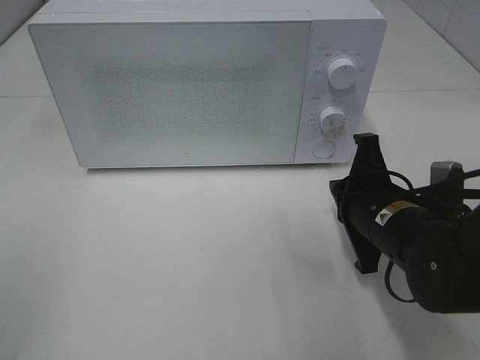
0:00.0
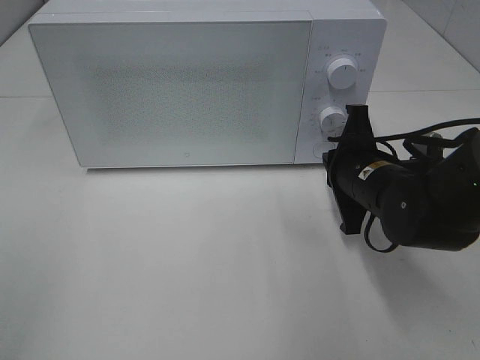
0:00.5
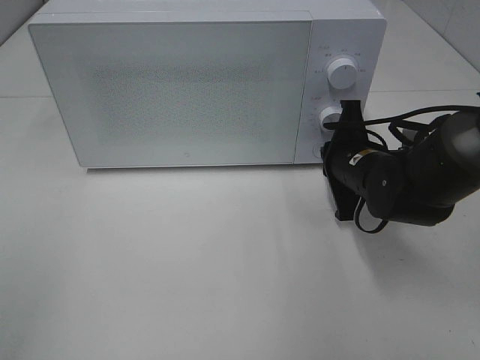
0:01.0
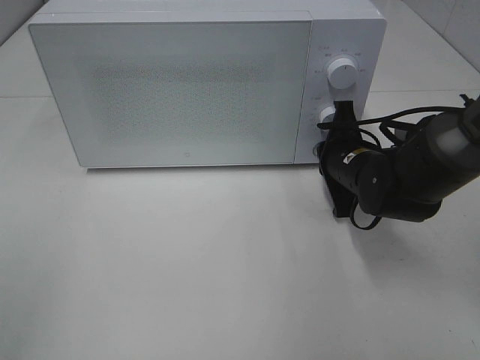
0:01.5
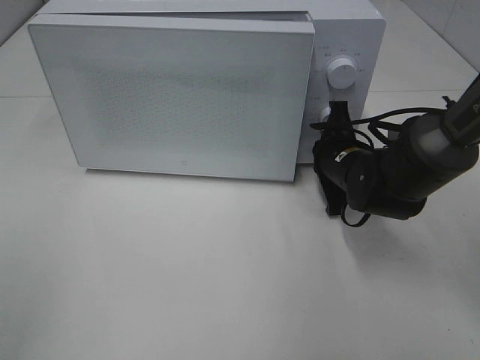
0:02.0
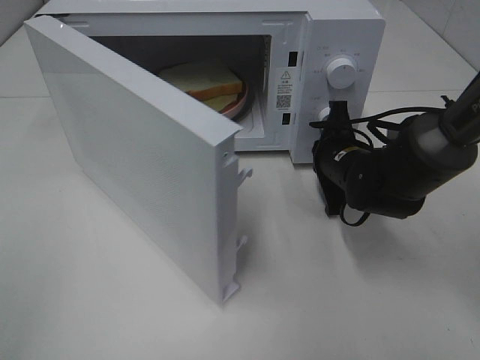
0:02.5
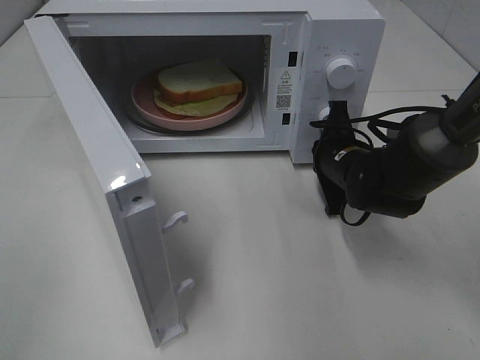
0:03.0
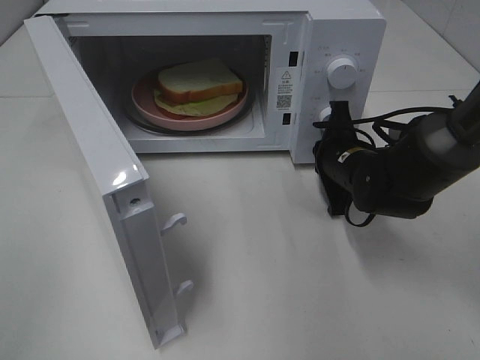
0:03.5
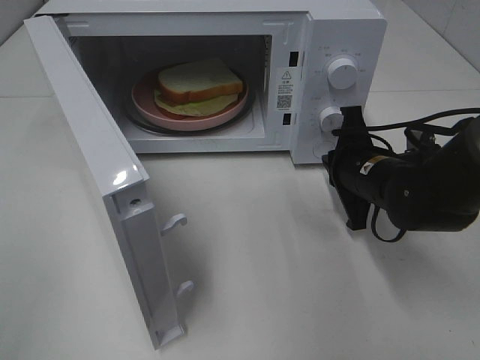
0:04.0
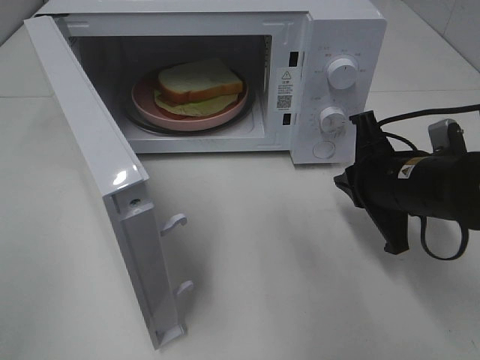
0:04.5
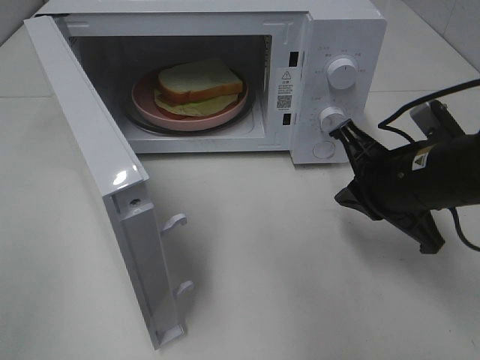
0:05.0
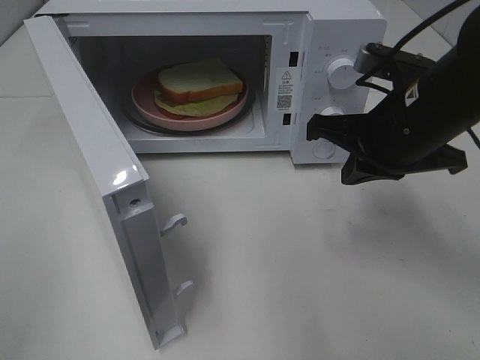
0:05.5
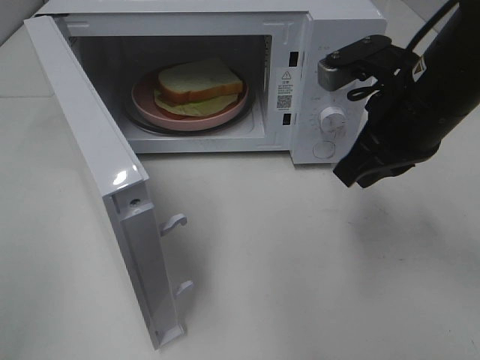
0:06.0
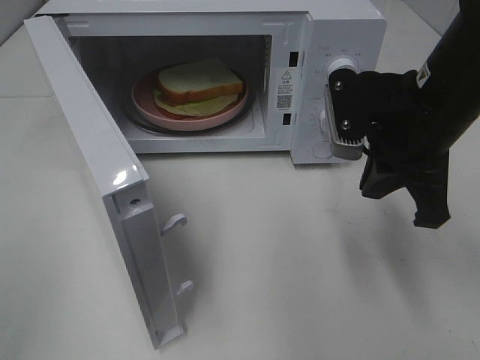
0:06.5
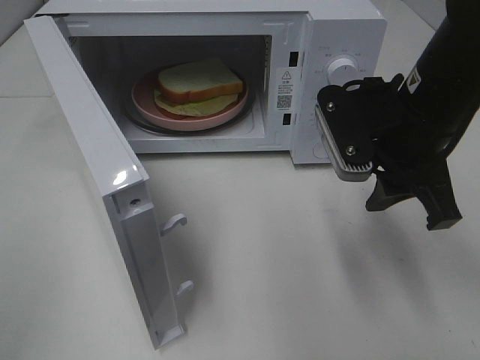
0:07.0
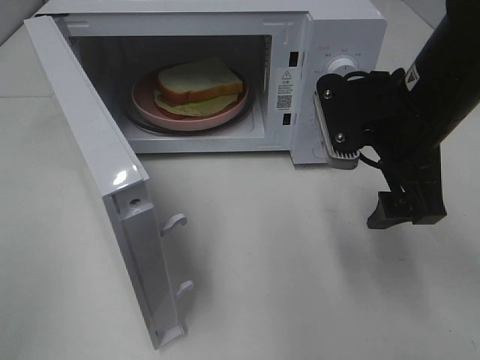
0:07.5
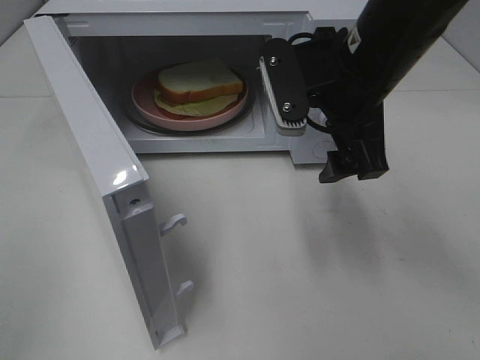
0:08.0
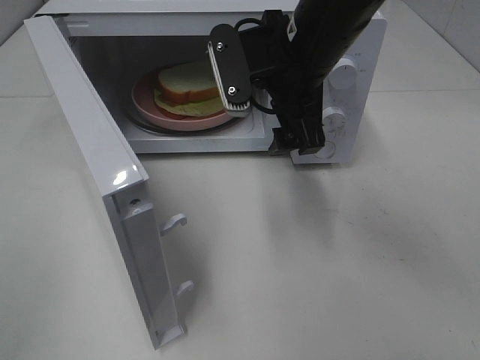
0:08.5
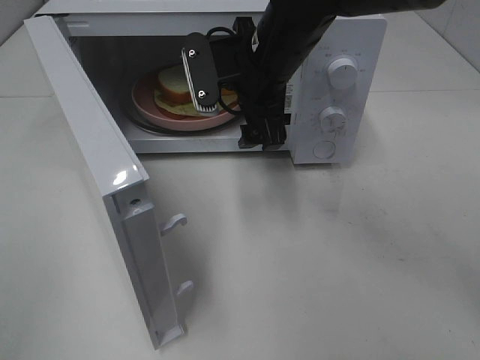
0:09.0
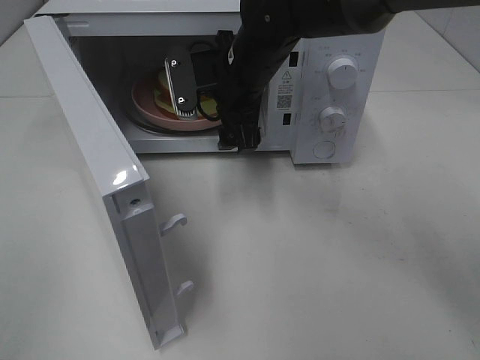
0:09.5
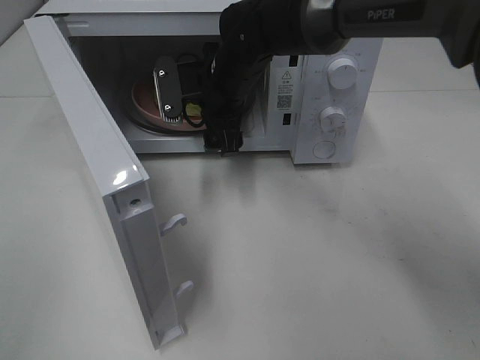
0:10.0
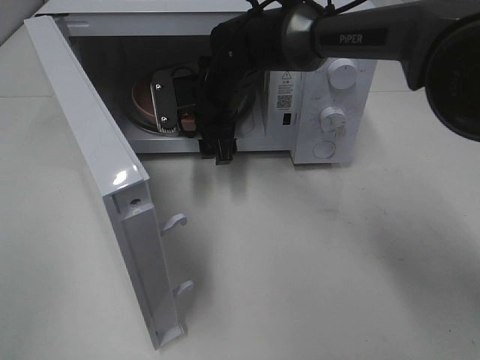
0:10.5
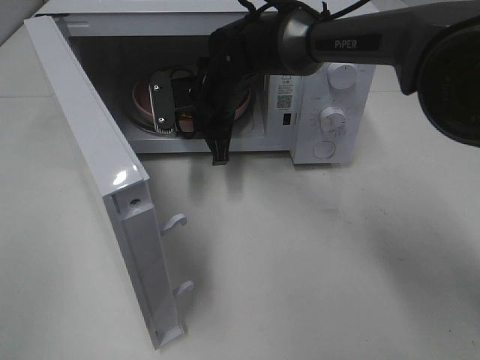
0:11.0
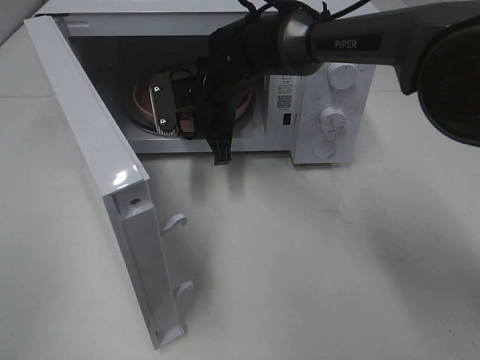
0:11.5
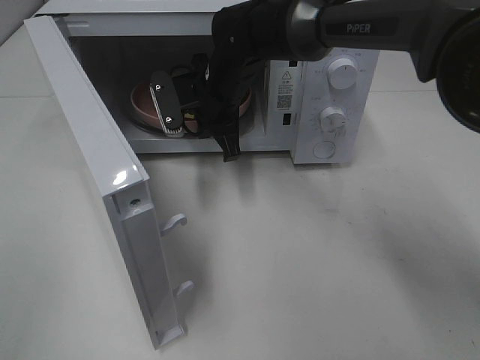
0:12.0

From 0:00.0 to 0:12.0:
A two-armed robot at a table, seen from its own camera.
Task of the whole recording: Heat Sandwich.
Step, from 0:00.0 to 0:04.0: Right hand: press the switch.
Step, from 0:04.5 to 0:11.0: Right hand: grab the plate with the sandwich.
From 0:00.0 to 0:02.0: The right gripper heads forward, covering about 10 cm.
From 0:04.0 to 0:06.0: The right gripper travels upward by some 15 cm.
From 0:06.0 to 0:08.0: The right gripper heads to the left, covering roughly 5 cm, and opens.
From 0:08.0 to 0:10.0: The right gripper is displaced forward, to the left and downward by some 20 cm.
From 0:10.0 to 0:12.0: The right gripper closes.

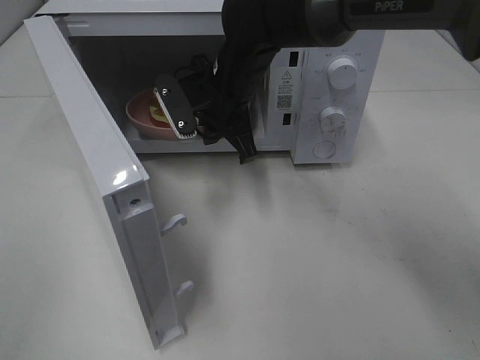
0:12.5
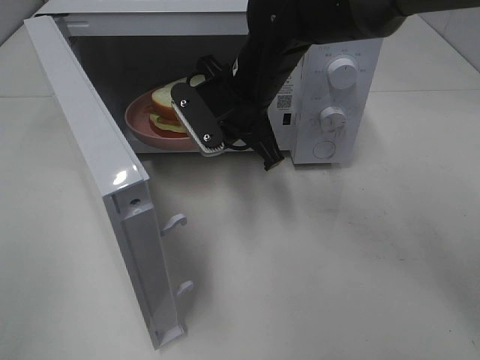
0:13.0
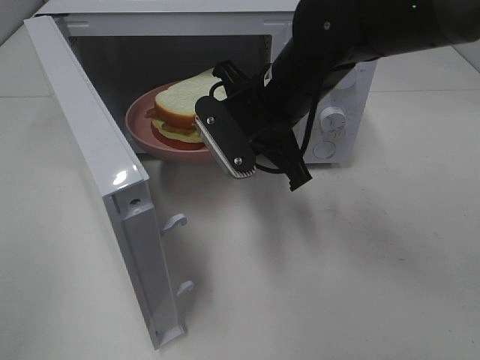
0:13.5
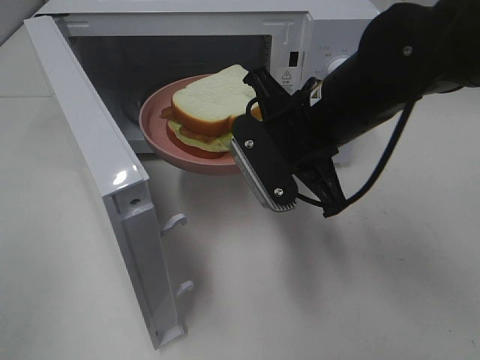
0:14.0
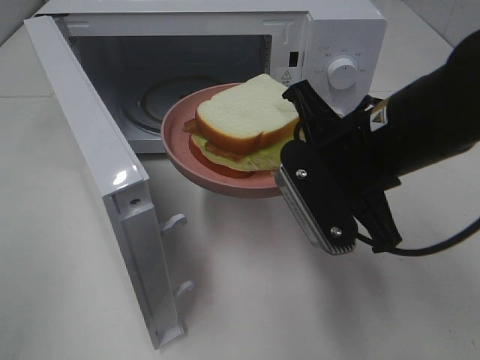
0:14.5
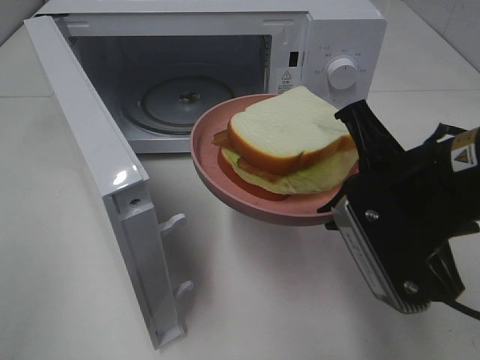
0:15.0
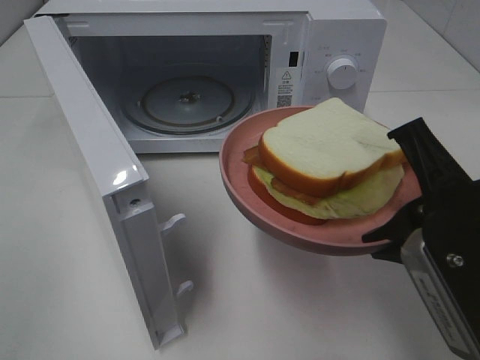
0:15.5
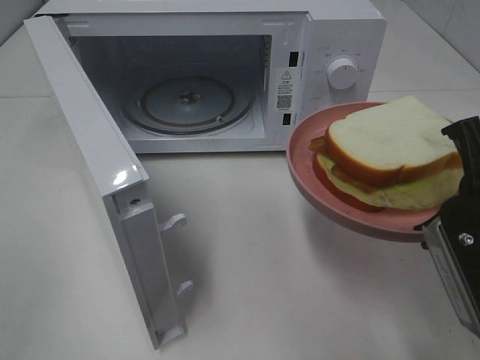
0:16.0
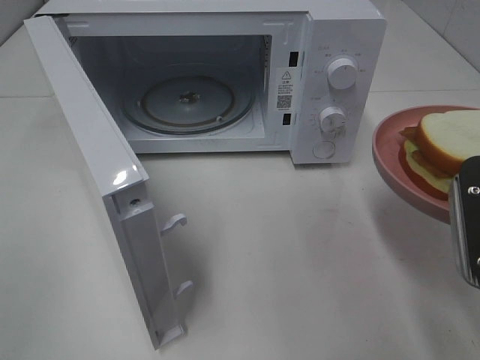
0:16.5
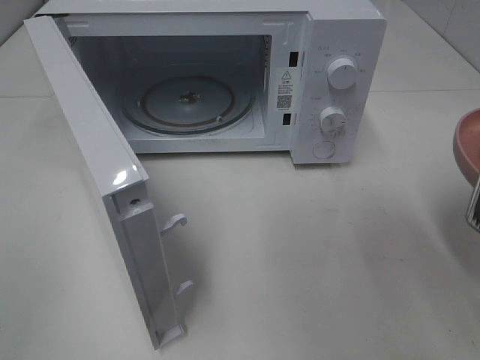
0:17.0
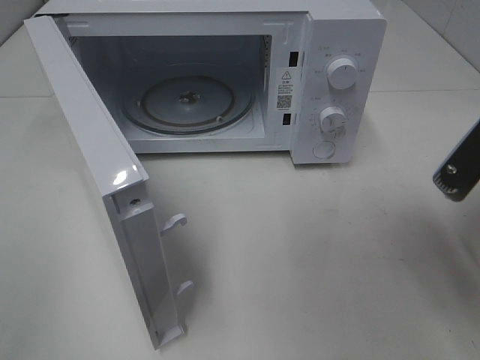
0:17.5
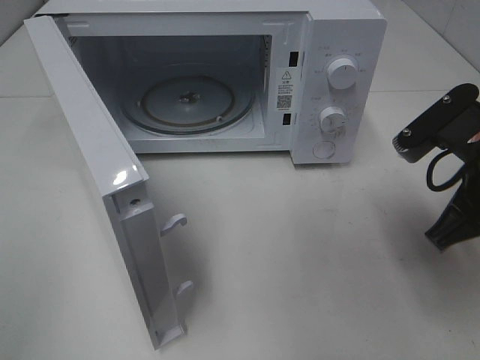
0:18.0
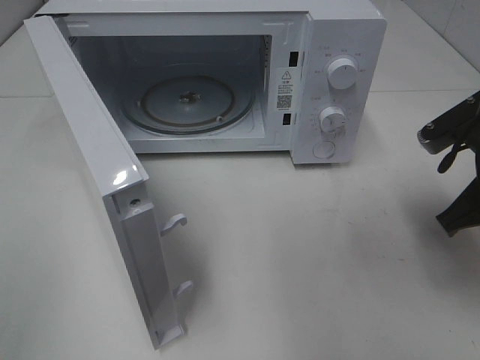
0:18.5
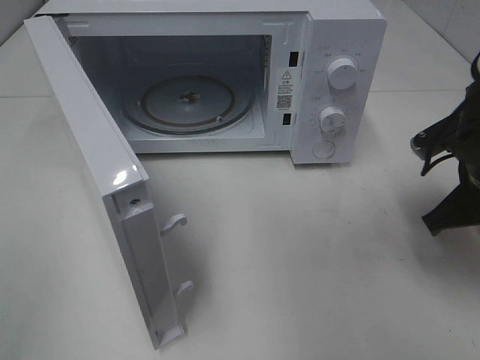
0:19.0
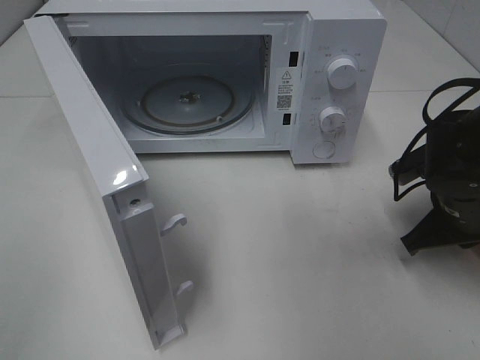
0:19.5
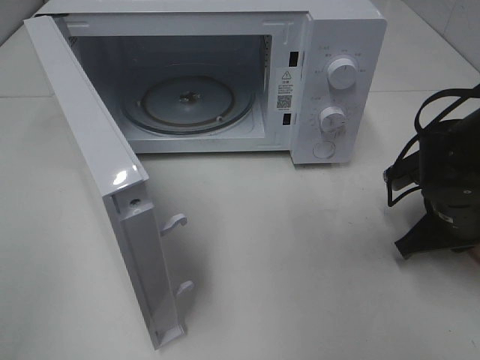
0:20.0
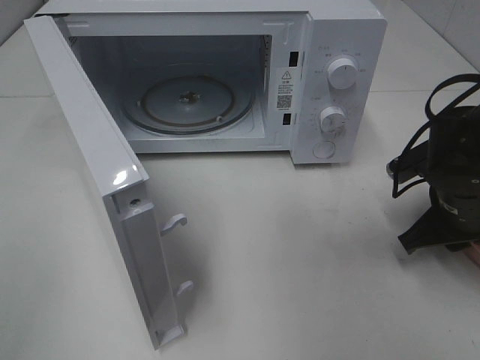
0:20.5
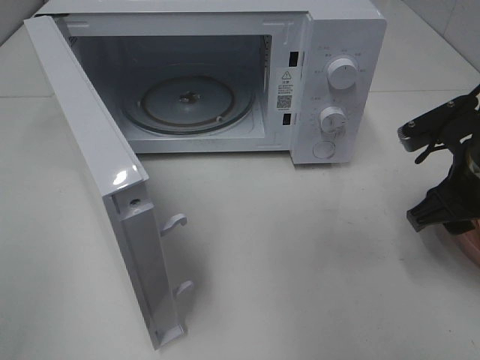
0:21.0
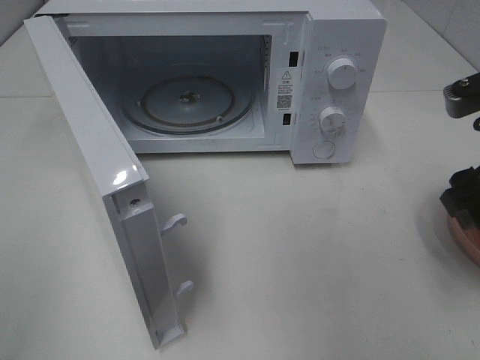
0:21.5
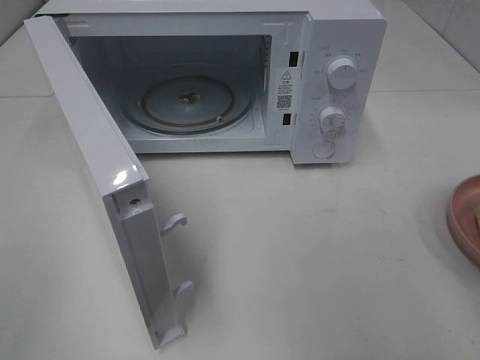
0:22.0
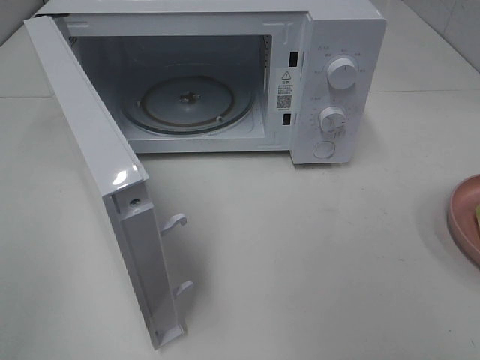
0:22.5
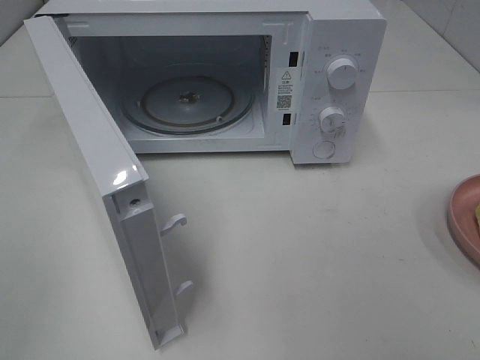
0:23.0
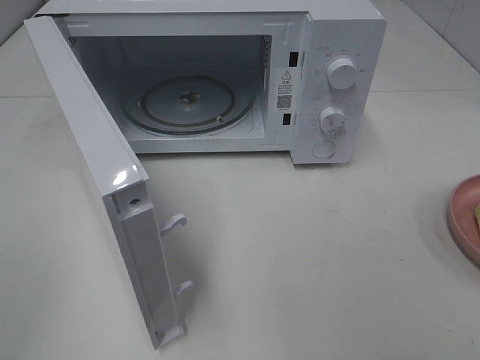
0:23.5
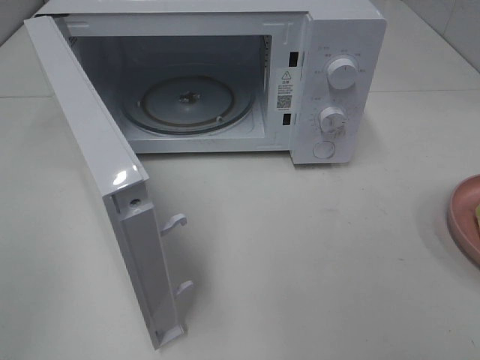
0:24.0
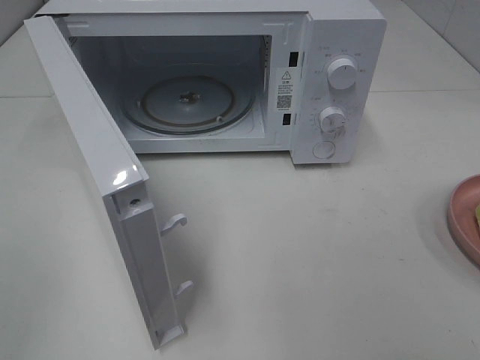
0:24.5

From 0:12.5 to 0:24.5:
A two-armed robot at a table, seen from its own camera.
Task of the whole recording: Heat Sandwich.
Step, from 0:12.5 to 0:20.5: Right hand: place the plate on the table.
From 0:12.5 to 0:14.5: The right gripper goes some 20 cm backward and to the right.
From 0:14.5 to 0:16.5: The right gripper shifts about 15 cm to the right and backward.
From 0:16.5 to 0:18.5: The right gripper is displaced forward by about 10 cm.
From 0:18.5 to 0:20.5: The right gripper is displaced downward by approximately 5 cm.
From 0:20.5 to 0:22.5: The right gripper goes roughly 30 cm upward and backward, and opens up.

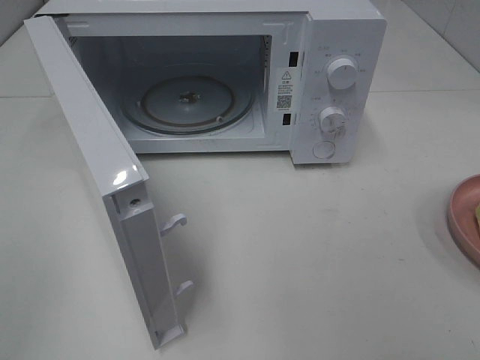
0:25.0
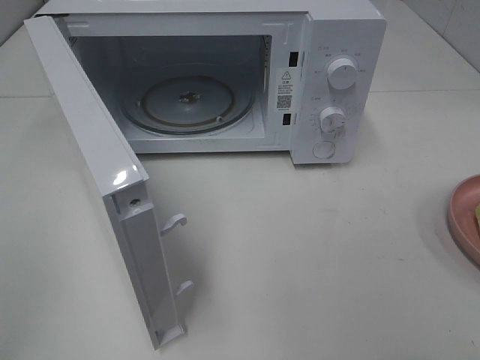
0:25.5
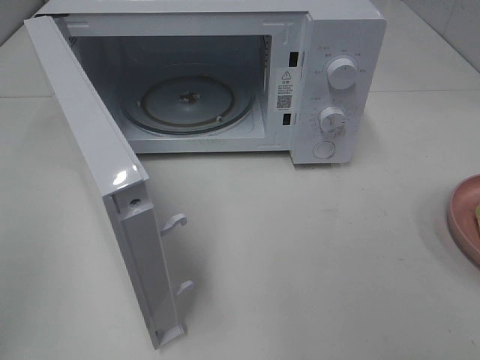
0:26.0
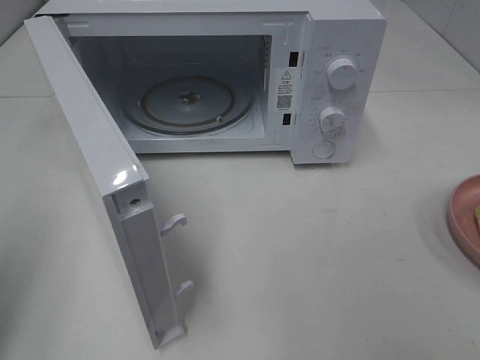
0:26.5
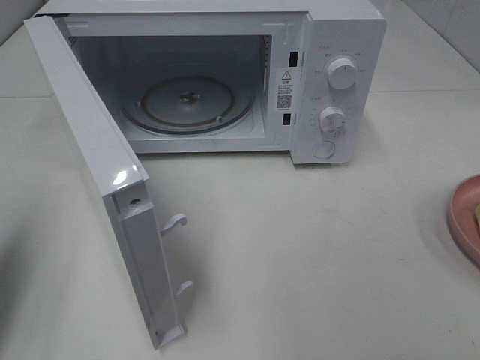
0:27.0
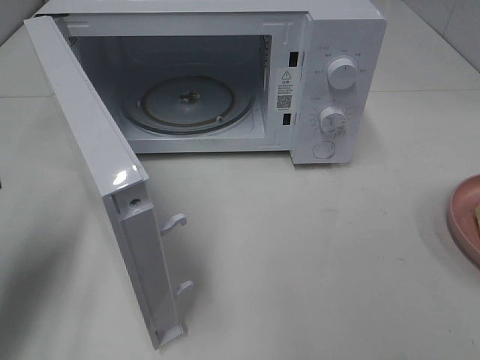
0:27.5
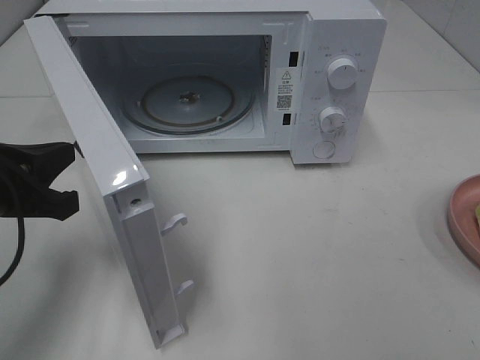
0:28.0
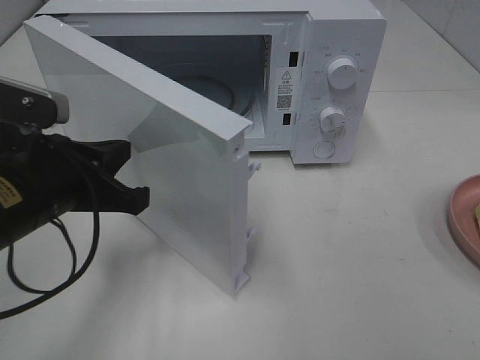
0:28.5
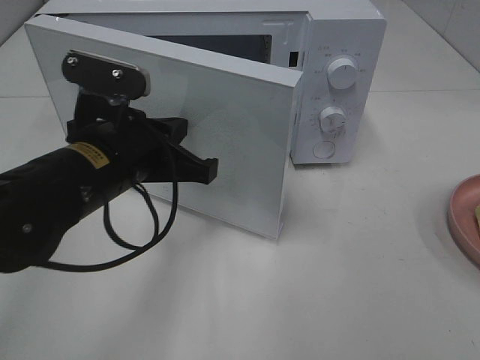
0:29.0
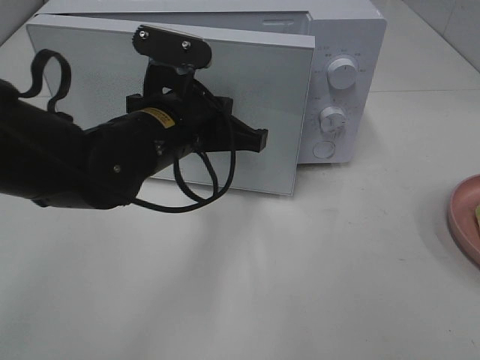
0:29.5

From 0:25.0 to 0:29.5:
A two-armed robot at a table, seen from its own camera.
Task of the whole recording: Heat Sandwich.
From 0:25.0 to 0:27.0: The left gripper travels forward by about 15 cm, and closes its fingers.
From 0:27.0 to 0:29.5: The left gripper shifts approximately 30 cm to the right and forward.
